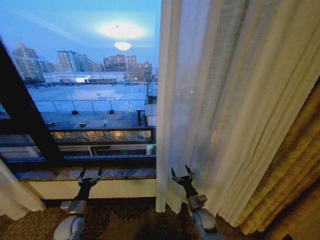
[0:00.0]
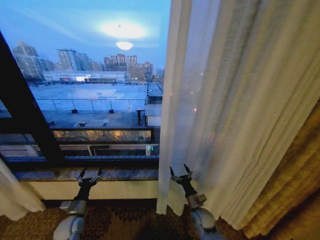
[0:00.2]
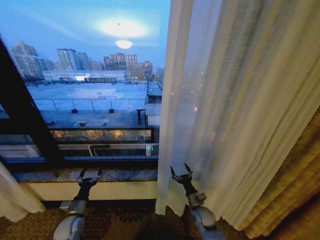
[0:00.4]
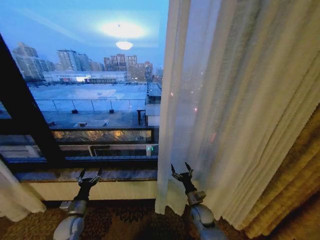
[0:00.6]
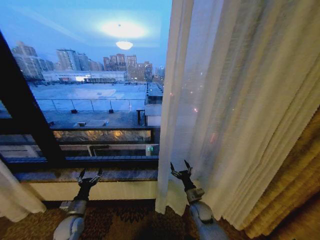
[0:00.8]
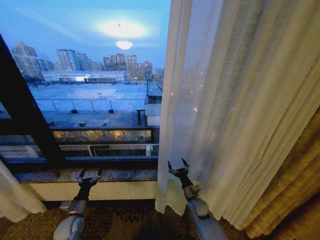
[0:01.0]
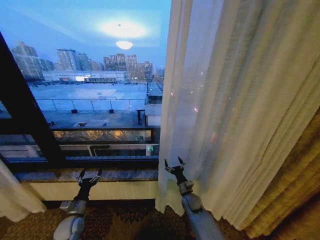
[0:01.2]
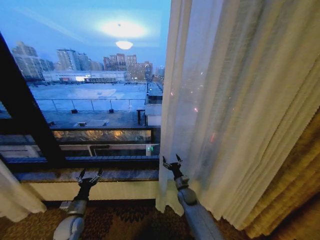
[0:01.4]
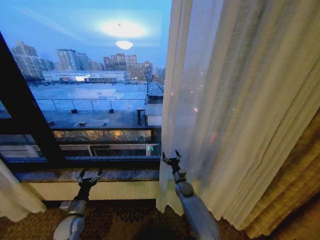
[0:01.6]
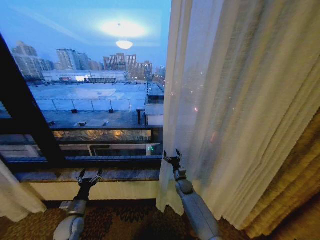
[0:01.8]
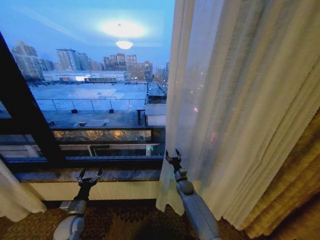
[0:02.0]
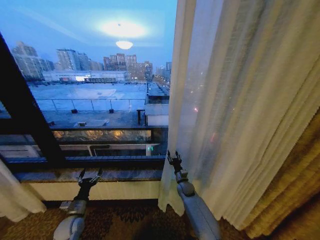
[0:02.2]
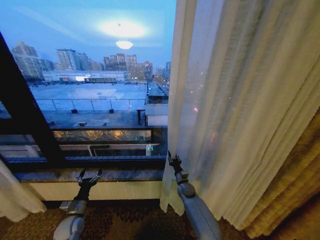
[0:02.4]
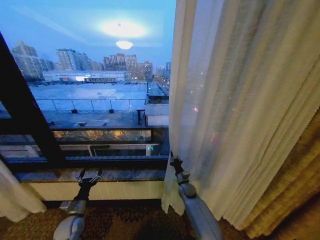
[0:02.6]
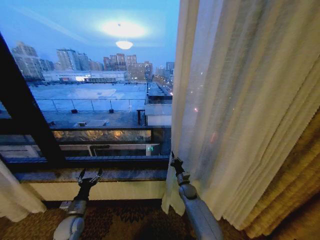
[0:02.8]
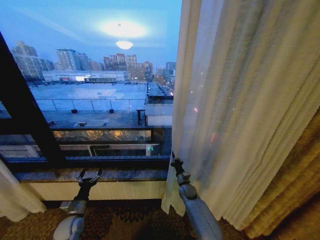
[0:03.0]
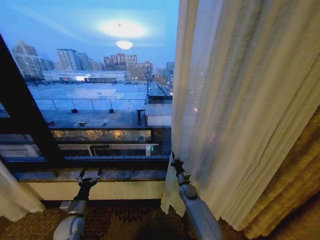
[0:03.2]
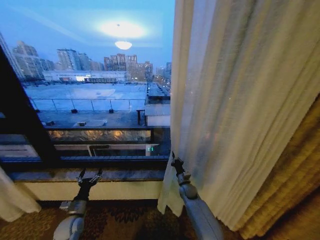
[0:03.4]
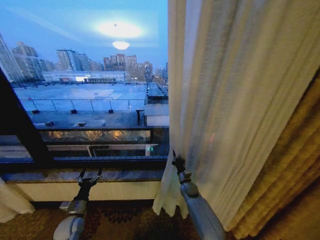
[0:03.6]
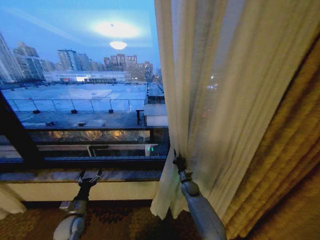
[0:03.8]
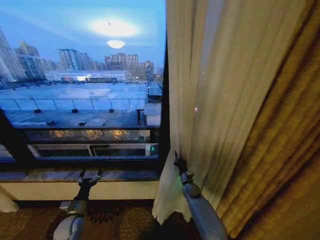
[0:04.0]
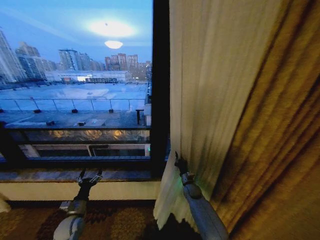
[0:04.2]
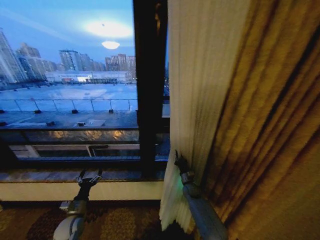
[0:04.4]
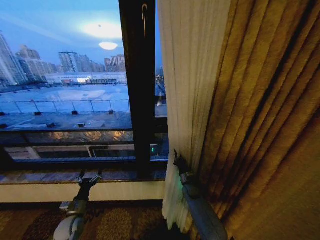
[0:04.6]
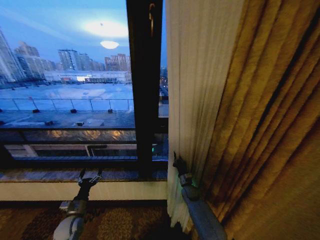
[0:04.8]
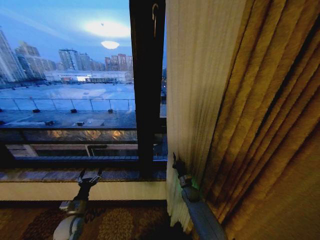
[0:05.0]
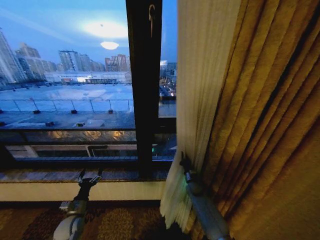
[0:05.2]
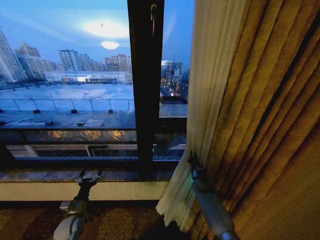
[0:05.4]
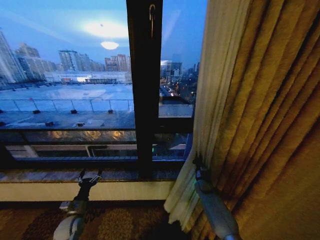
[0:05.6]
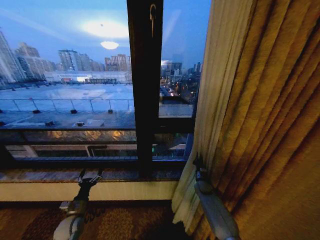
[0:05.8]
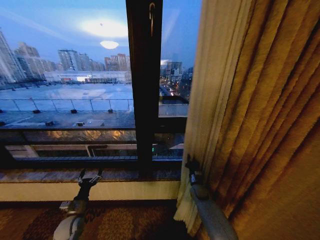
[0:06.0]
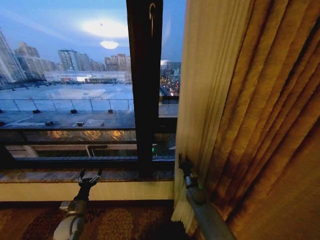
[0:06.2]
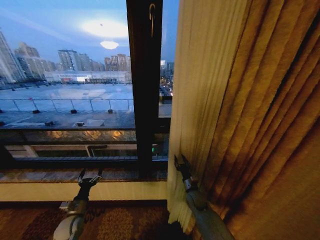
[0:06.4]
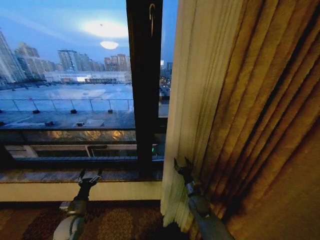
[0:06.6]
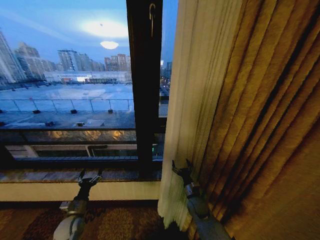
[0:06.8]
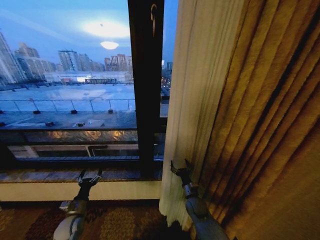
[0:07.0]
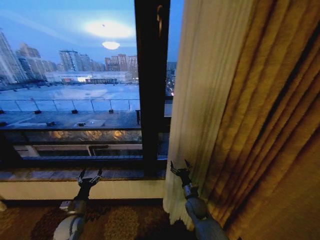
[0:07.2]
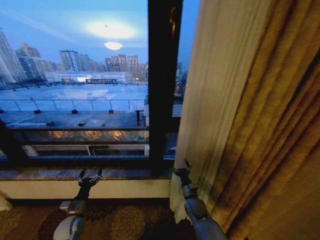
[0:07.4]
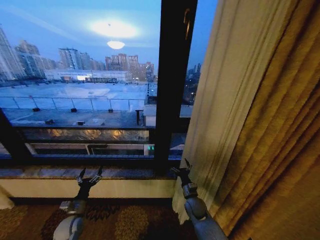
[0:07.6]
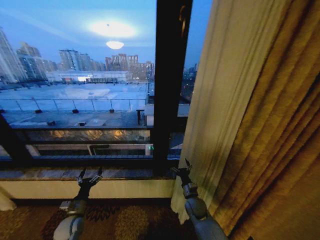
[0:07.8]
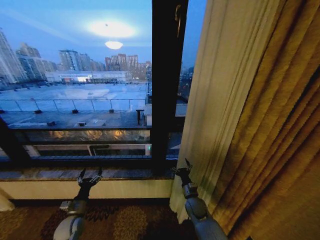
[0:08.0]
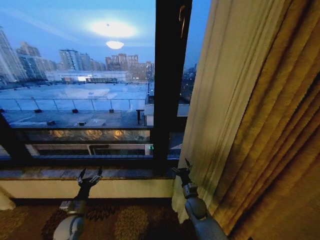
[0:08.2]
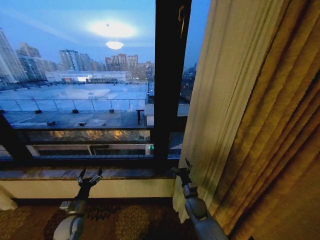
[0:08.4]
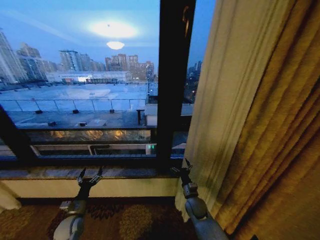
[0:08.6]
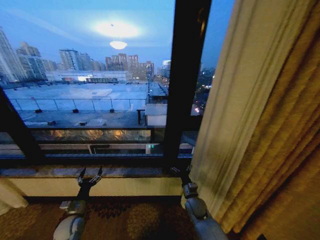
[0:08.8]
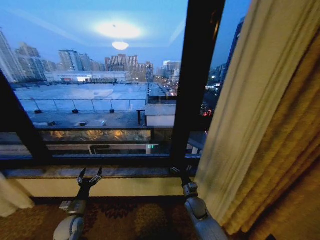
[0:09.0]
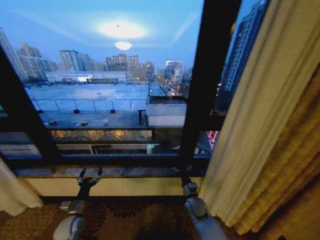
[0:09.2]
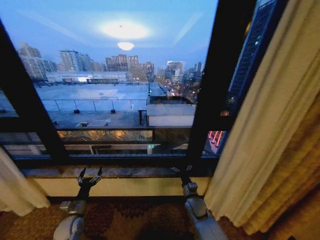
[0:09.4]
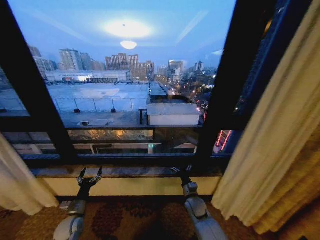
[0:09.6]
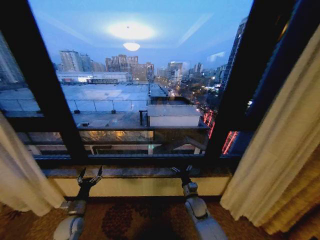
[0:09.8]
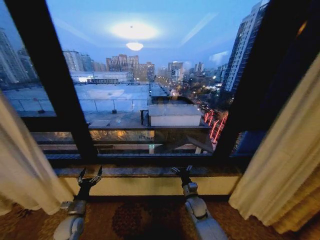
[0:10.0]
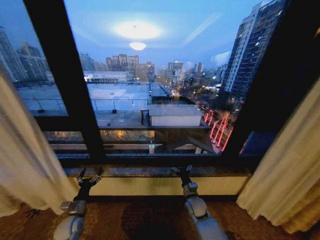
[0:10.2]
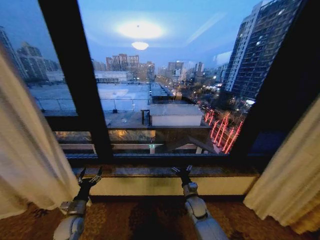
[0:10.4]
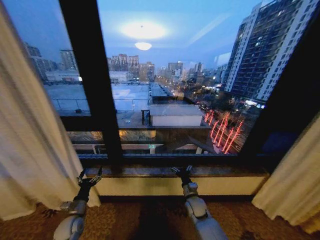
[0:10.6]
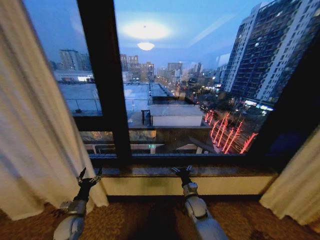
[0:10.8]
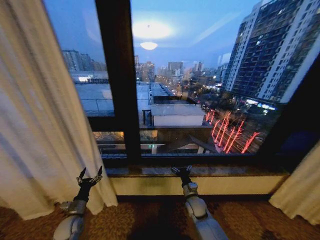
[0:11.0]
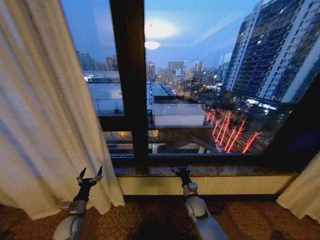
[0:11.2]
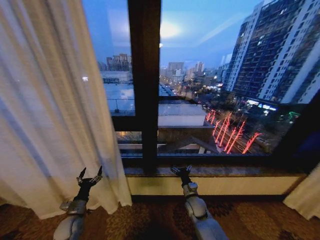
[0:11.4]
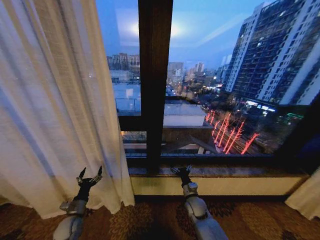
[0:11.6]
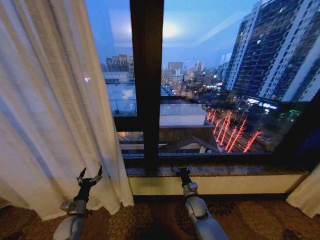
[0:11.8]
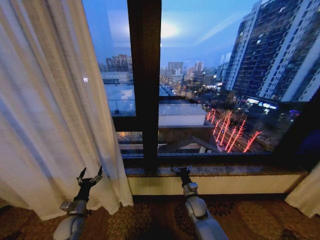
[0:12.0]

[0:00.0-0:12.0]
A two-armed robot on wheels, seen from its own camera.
Task of the whole recording: Open the curtains by pulling them apart, changing their state from closed to fully open.
0:00.0 to 0:01.6: The right gripper is displaced forward by about 15 cm.
0:01.6 to 0:03.0: The right gripper closes its fingers.
0:06.0 to 0:07.6: The right gripper is displaced backward and to the left by roughly 10 cm, and opens.

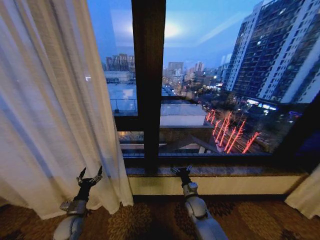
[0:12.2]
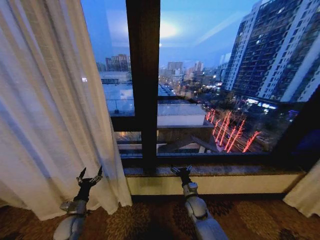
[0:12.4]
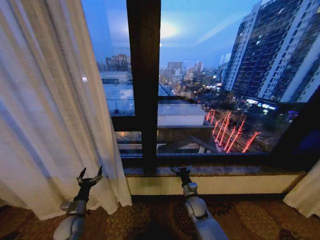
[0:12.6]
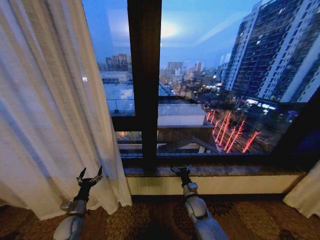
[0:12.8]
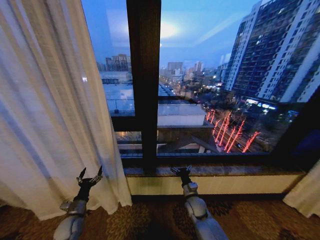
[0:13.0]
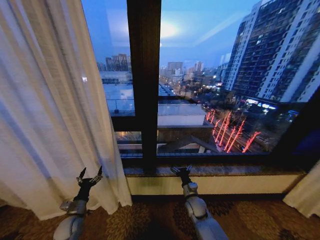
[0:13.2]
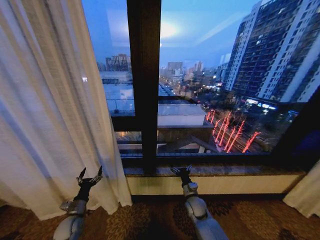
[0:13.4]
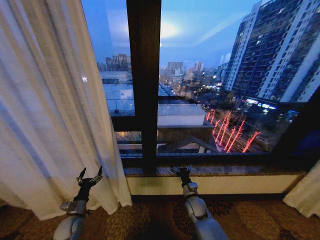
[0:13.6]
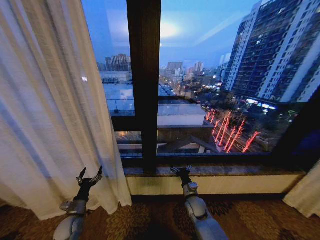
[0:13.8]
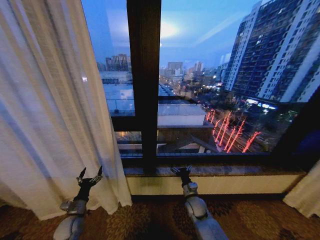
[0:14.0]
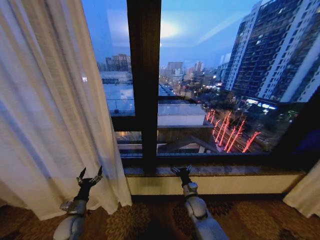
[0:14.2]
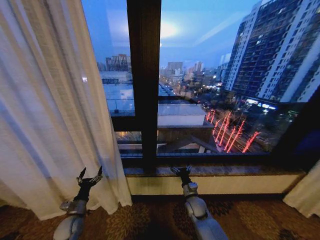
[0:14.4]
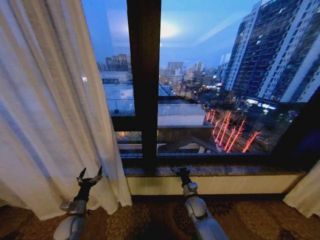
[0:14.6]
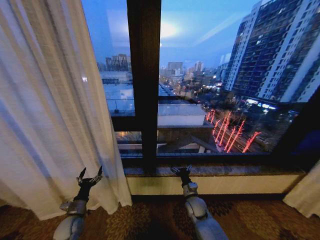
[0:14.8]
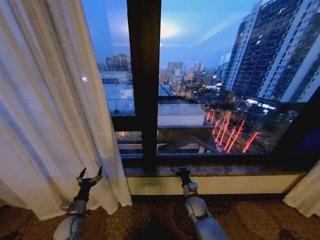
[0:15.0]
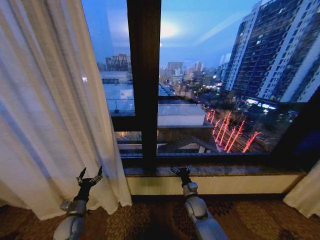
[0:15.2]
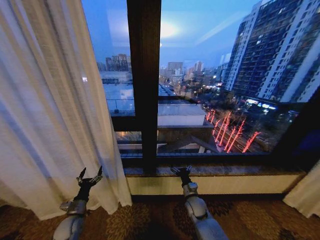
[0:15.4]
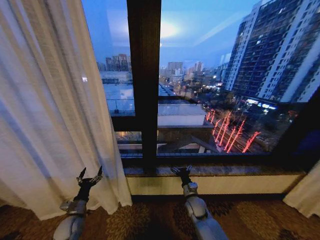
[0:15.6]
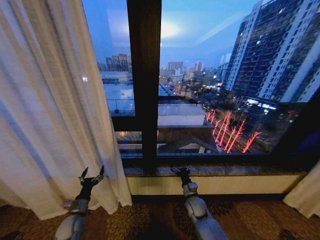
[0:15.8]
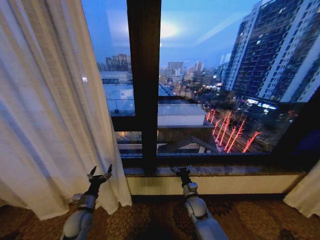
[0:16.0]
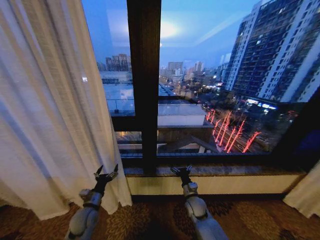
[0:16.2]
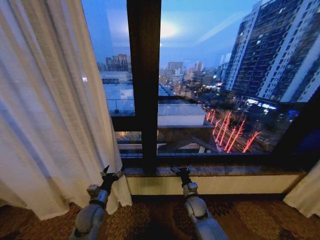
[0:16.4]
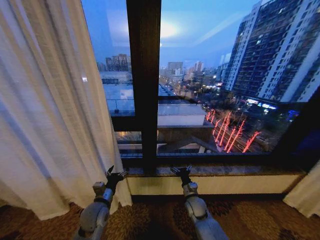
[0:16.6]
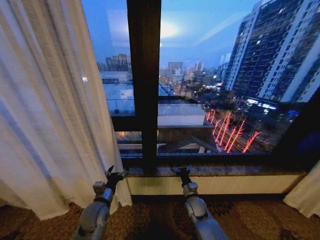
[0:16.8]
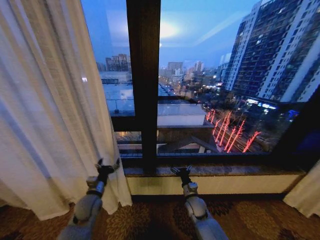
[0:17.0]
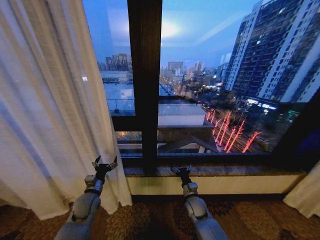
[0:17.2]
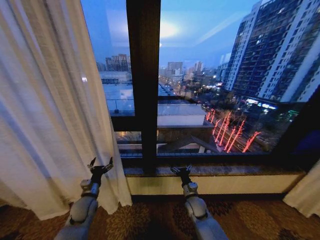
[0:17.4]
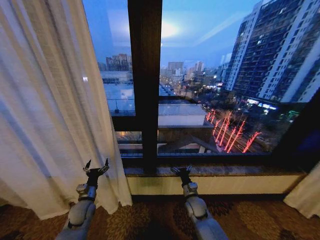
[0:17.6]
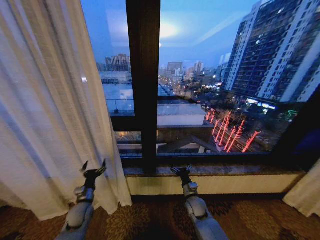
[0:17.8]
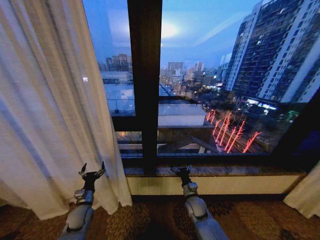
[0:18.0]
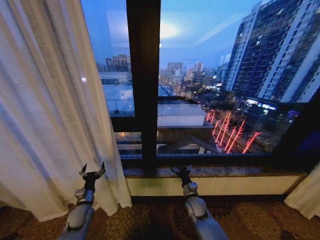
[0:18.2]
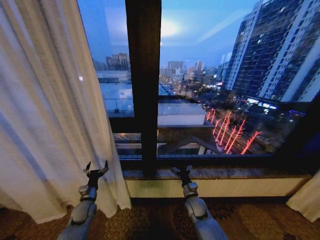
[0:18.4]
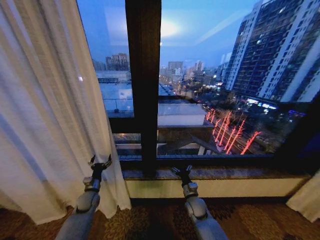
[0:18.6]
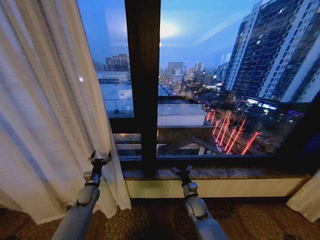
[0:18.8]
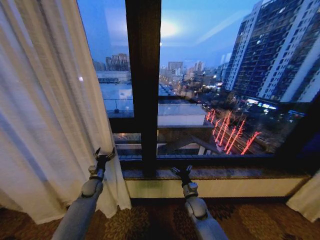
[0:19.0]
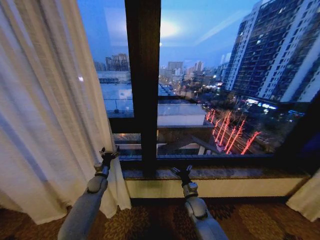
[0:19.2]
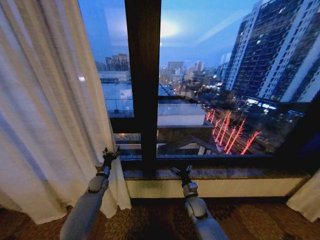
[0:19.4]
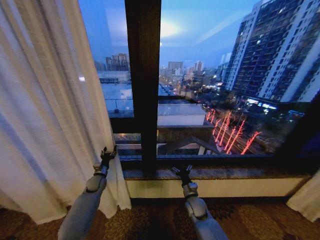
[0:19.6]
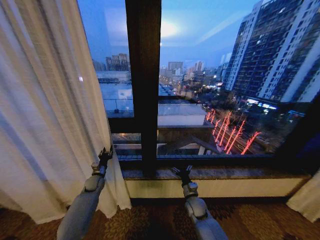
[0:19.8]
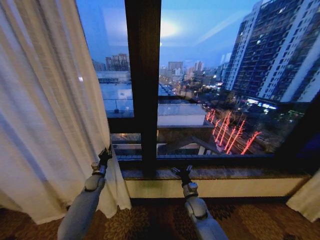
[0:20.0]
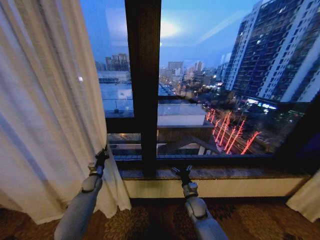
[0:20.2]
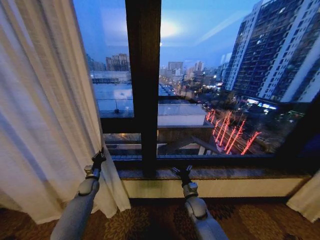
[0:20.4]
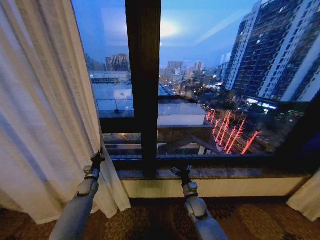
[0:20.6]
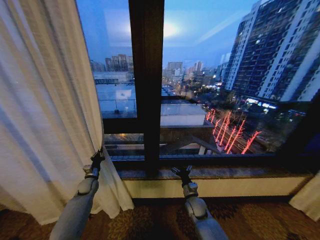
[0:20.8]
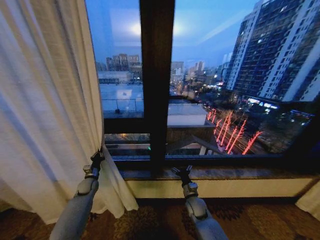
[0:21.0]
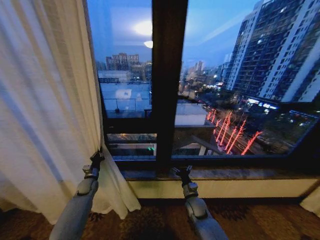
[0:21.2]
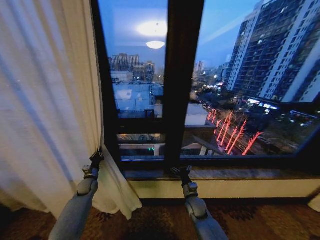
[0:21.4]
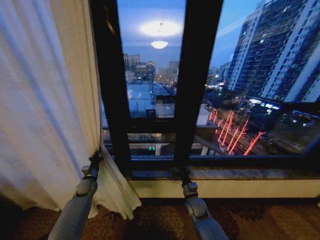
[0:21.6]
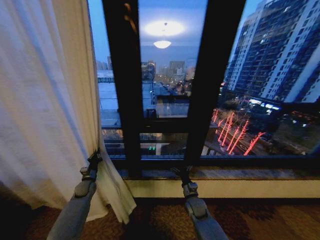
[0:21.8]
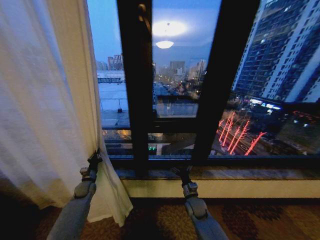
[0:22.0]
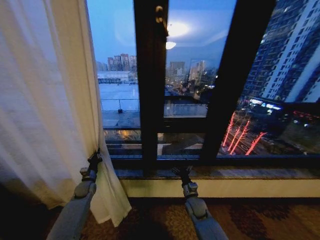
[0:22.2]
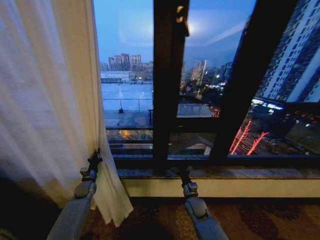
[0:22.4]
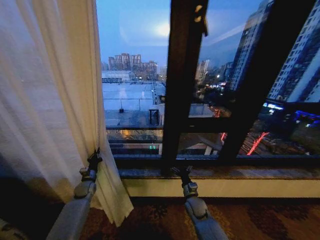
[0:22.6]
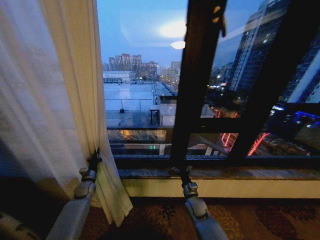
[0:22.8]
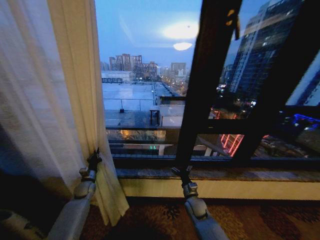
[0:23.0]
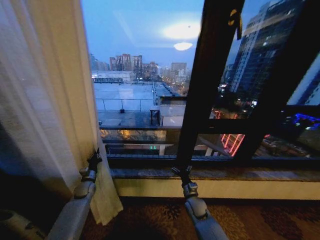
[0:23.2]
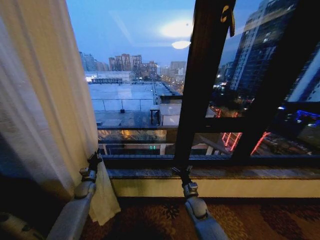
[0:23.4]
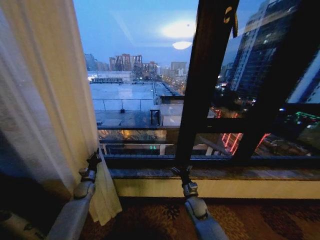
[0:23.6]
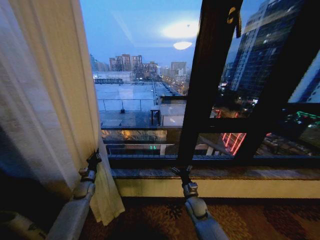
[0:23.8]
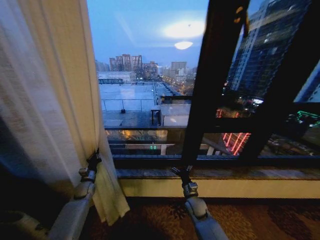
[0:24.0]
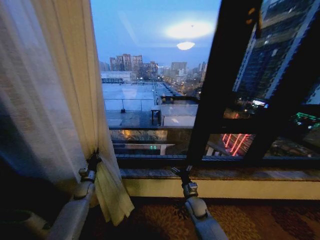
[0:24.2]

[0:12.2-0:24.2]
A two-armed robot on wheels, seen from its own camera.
Task of the whole recording: Open the curtains by pulling them apart, changing their state from closed to fully open.
0:12.2 to 0:15.2: The two grippers keep their place.
0:15.2 to 0:16.6: The left gripper heads to the right and upward, covering about 15 cm.
0:16.6 to 0:18.2: The left gripper goes roughly 15 cm to the left and downward.
0:18.2 to 0:19.8: The left gripper travels forward by some 15 cm, and closes its fingers.
0:19.8 to 0:21.2: The left gripper closes.
